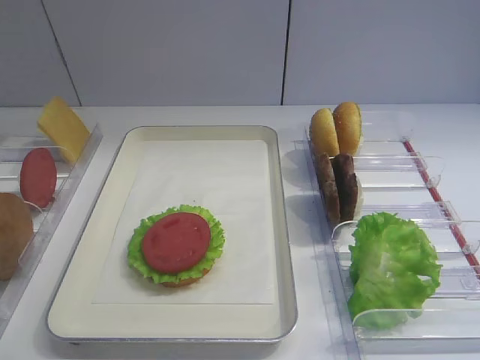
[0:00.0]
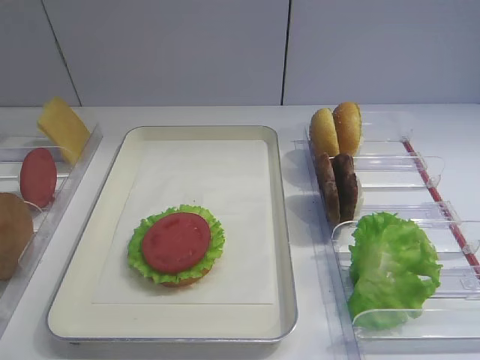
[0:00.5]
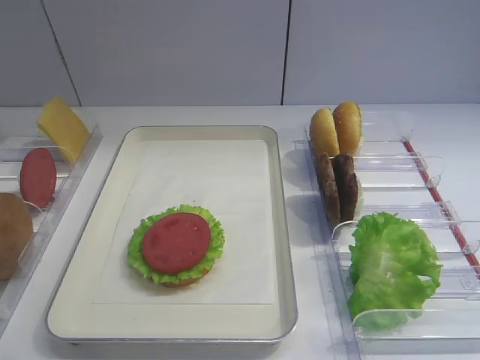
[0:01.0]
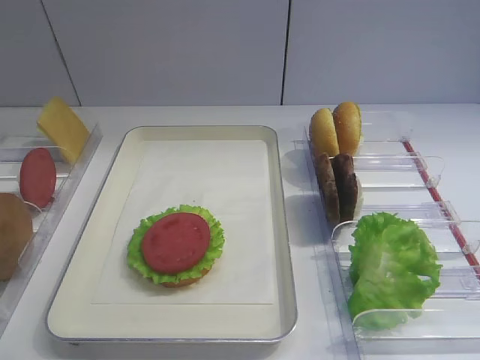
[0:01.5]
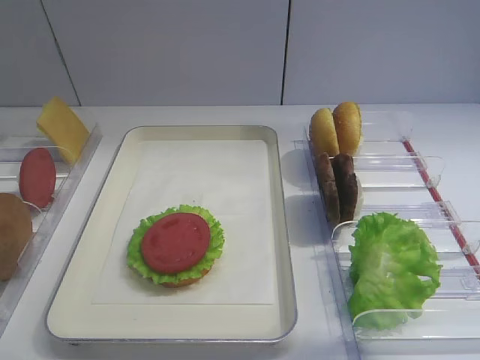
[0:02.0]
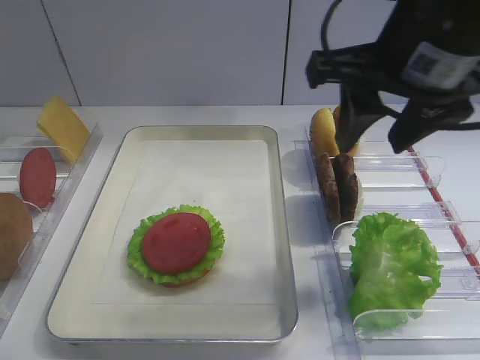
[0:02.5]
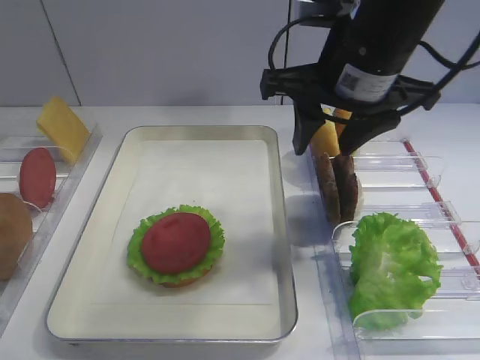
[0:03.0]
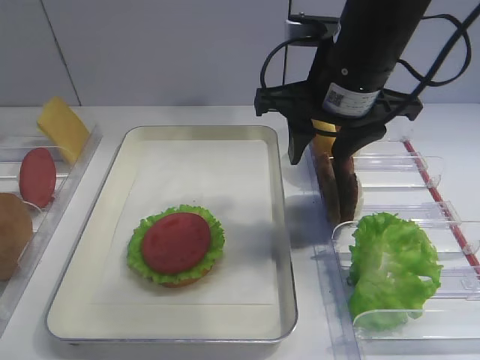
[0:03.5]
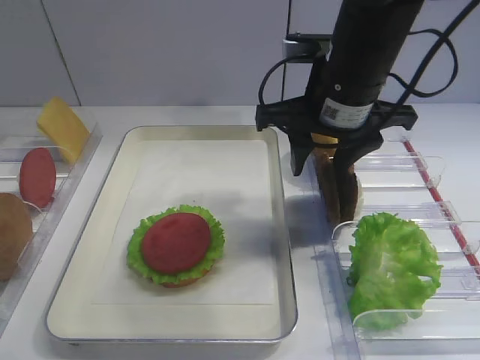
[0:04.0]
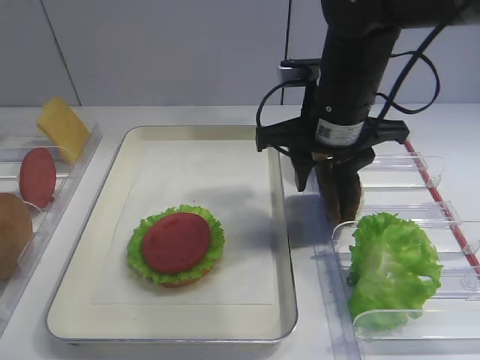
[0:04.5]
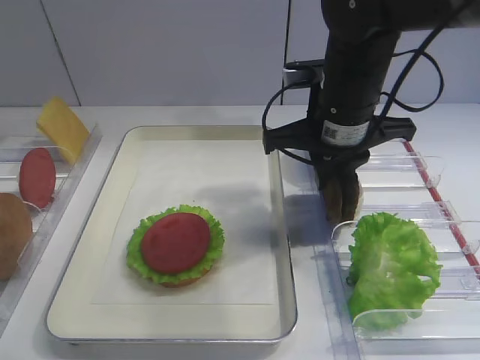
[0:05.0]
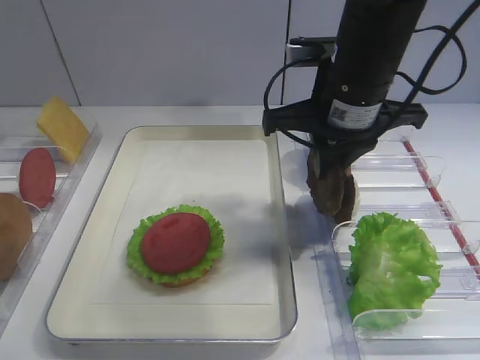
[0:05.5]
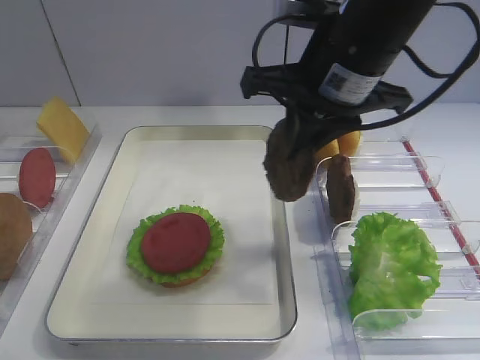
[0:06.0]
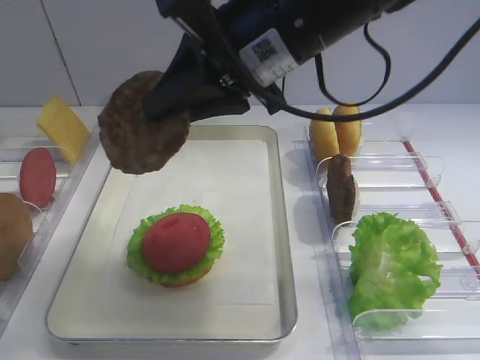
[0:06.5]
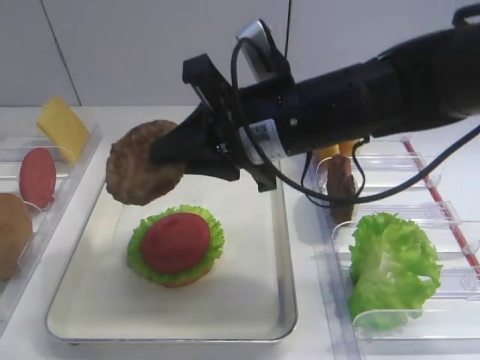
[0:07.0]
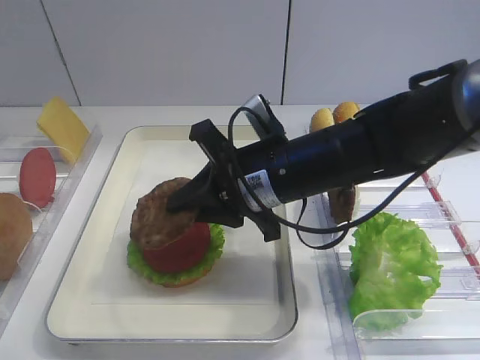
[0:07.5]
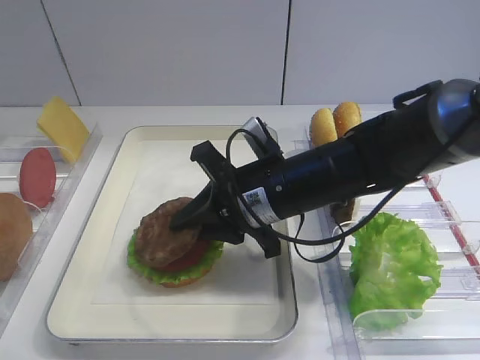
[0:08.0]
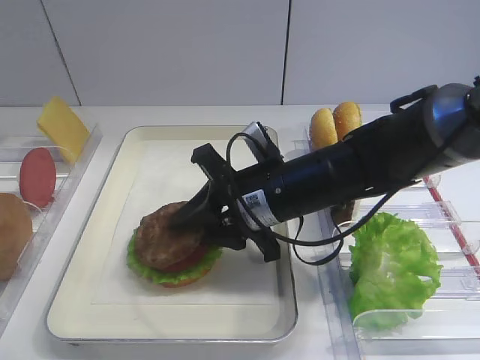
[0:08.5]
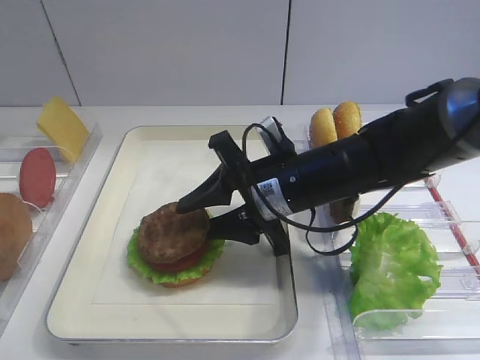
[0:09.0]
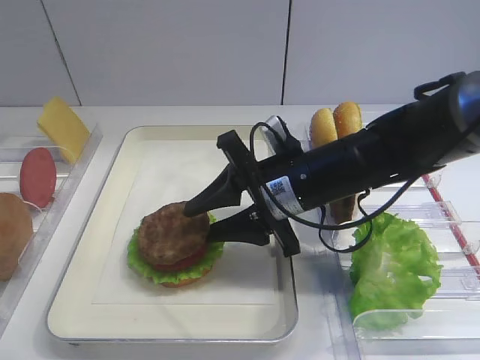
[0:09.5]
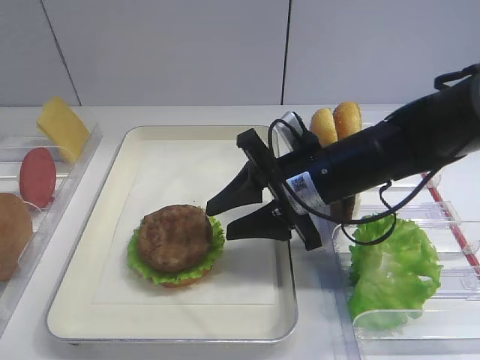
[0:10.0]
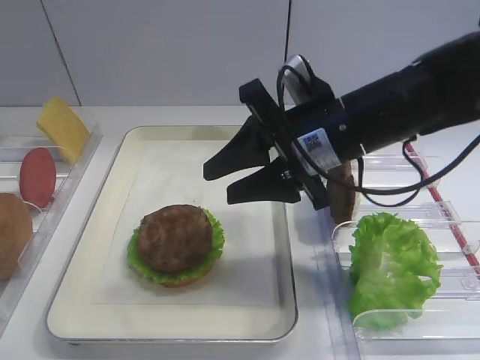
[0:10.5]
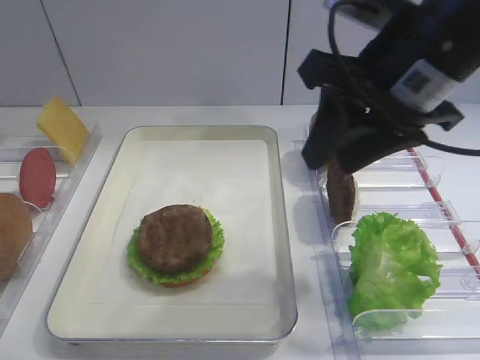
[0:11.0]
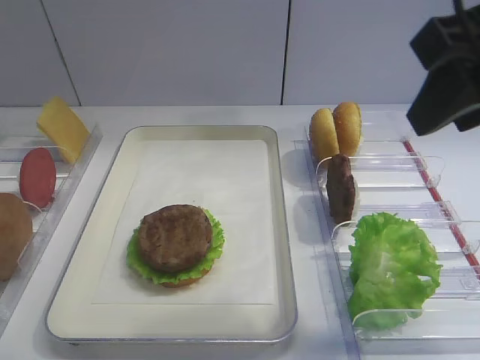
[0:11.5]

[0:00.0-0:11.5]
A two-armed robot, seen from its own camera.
Step, 0:00.0 to 0:05.5: Pick up the cutlet with the right gripper.
Step, 0:06.0 to 0:09.5: Place the cutlet on the tomato slice with the right gripper.
0:02.0 to 0:04.0: The right gripper heads forward, to the left and downward, covering roughly 25 cm.
0:04.0 to 0:06.0: The right gripper shifts by some 5 cm, and closes its fingers.
0:06.0 to 0:07.5: The right gripper shifts some 10 cm downward.
0:07.5 to 0:09.5: The right gripper opens.
0:09.5 to 0:11.5: The right gripper goes some 25 cm upward, to the right and backward.

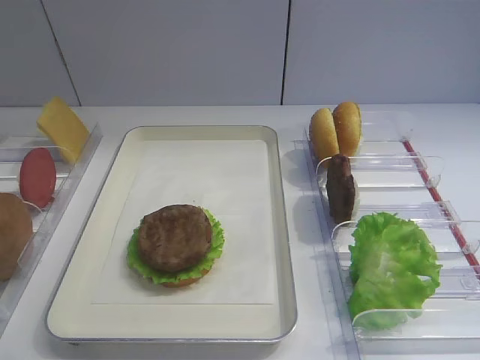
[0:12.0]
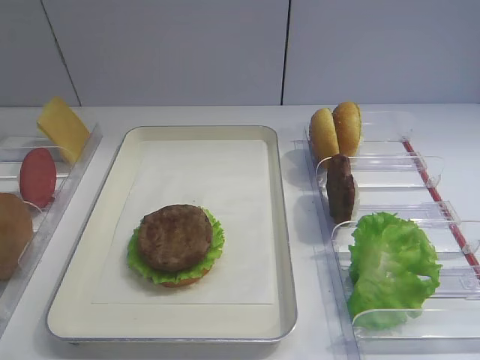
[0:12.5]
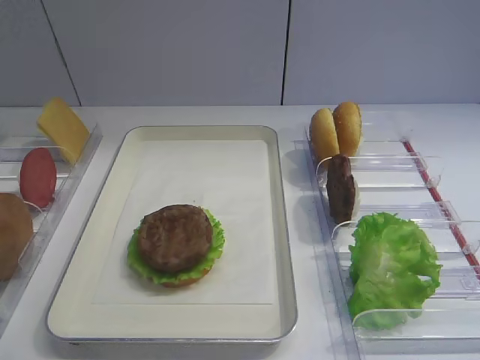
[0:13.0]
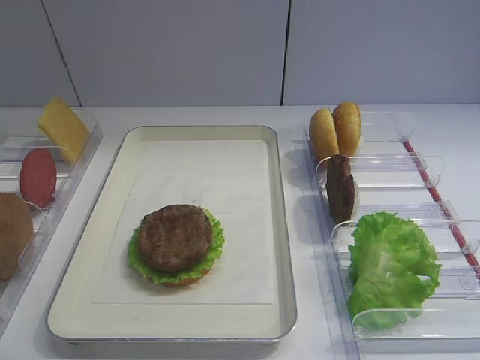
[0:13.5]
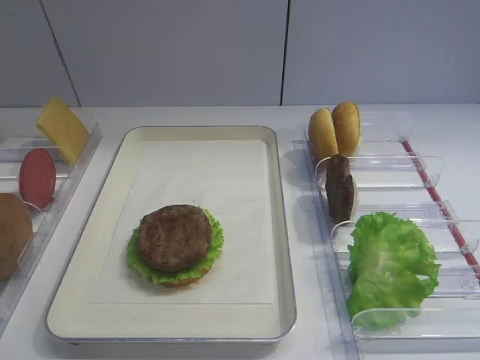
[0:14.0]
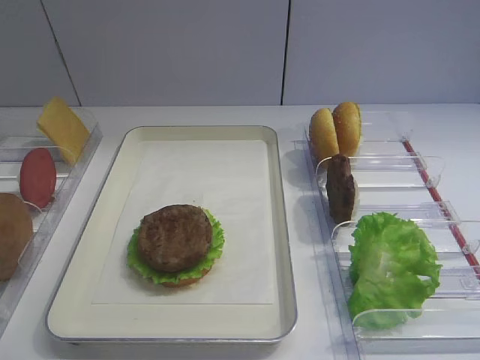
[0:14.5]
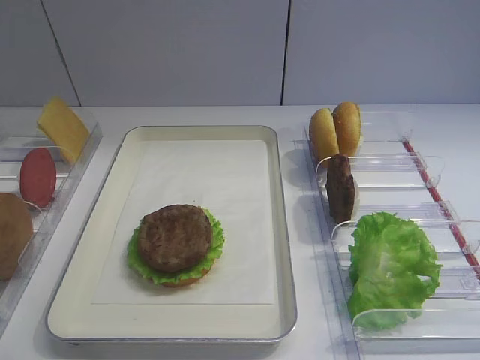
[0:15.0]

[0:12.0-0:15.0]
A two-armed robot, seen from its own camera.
0:12.0 to 0:13.5: The right gripper goes approximately 15 cm backward, downward and to the right.

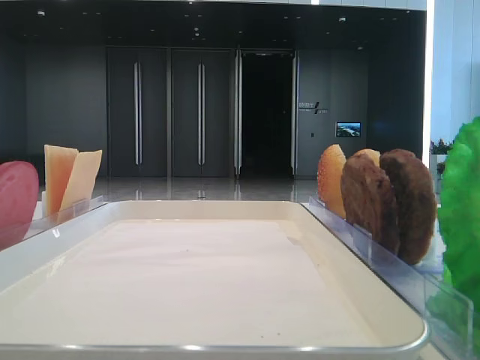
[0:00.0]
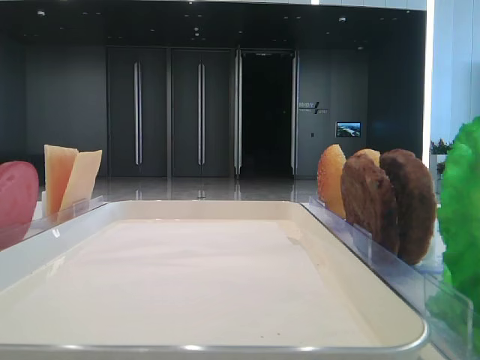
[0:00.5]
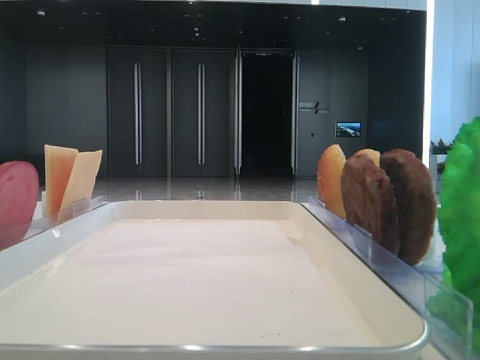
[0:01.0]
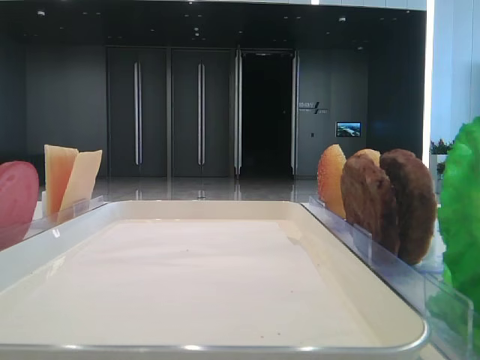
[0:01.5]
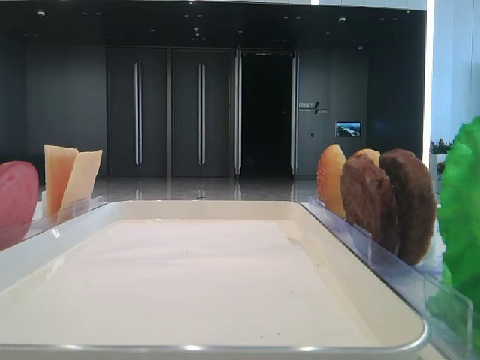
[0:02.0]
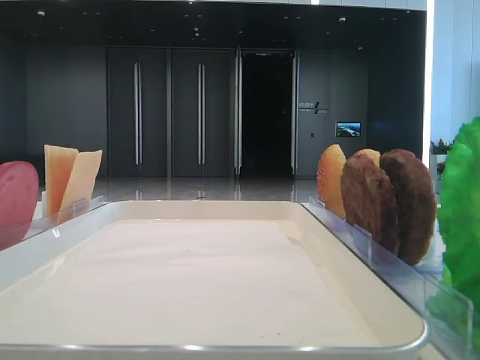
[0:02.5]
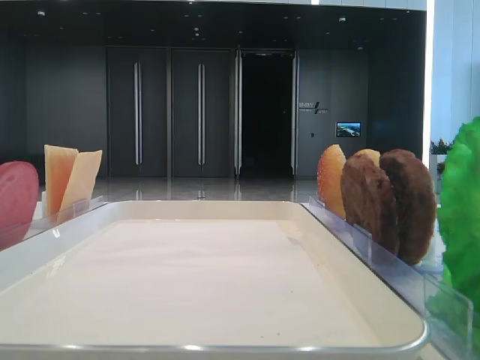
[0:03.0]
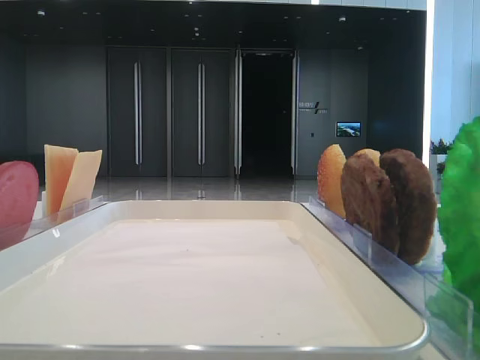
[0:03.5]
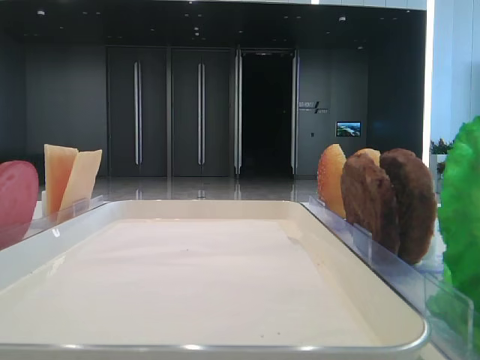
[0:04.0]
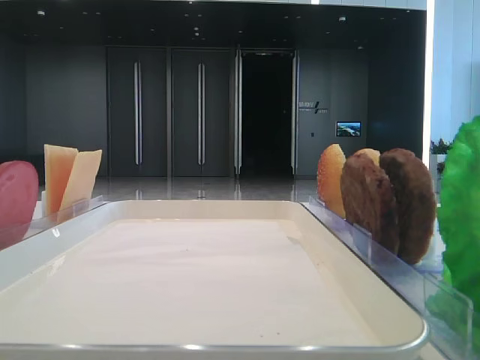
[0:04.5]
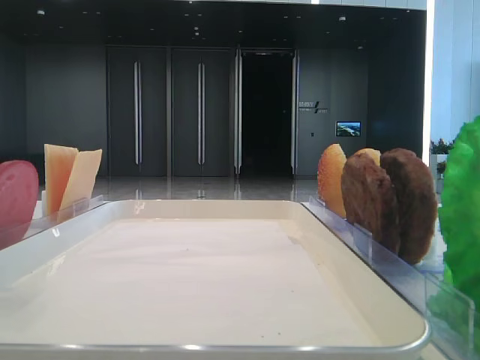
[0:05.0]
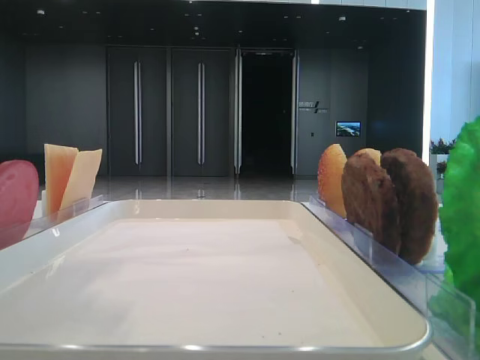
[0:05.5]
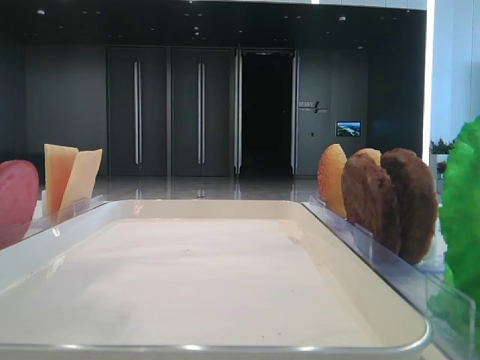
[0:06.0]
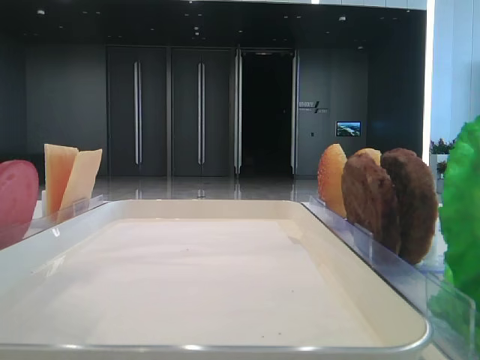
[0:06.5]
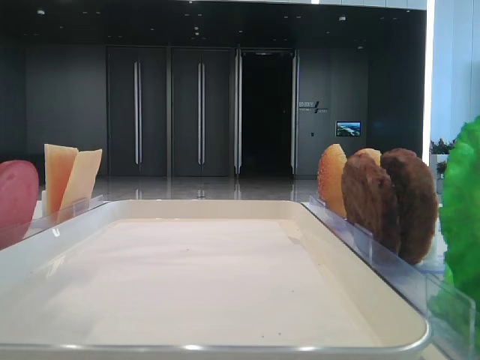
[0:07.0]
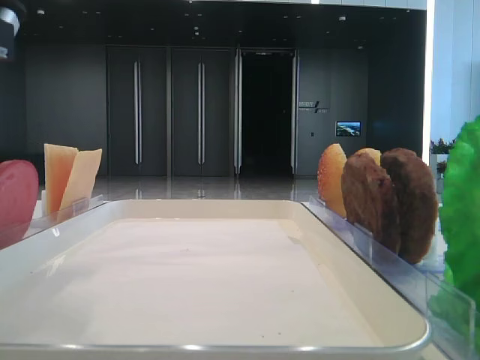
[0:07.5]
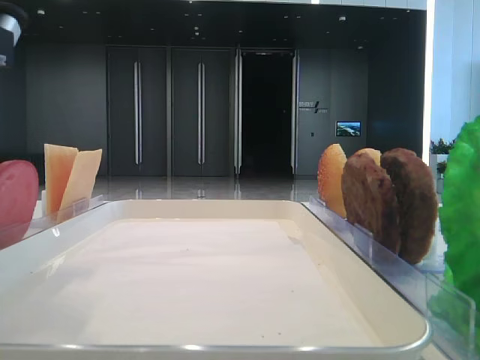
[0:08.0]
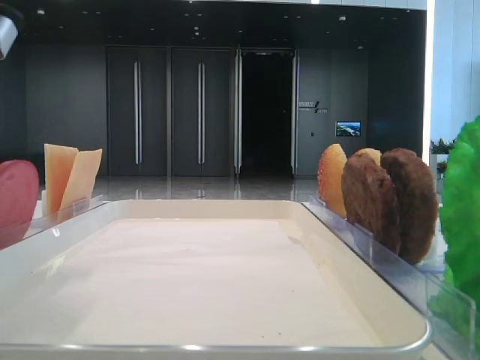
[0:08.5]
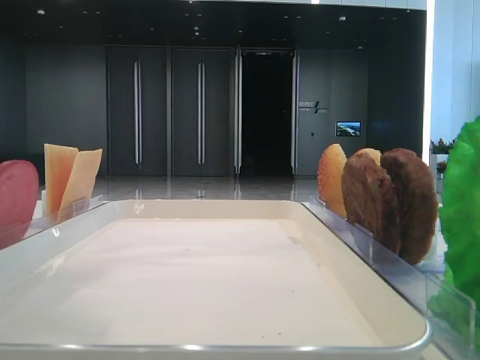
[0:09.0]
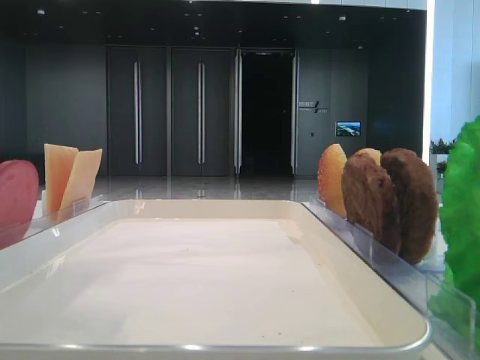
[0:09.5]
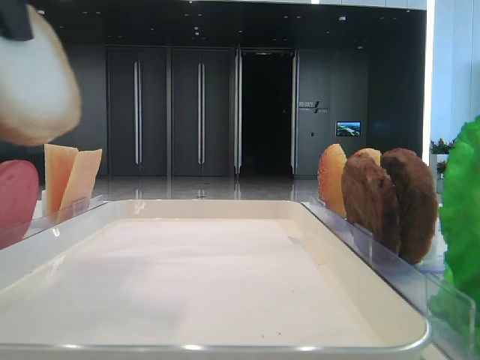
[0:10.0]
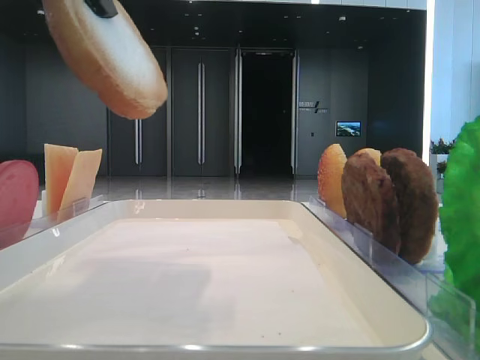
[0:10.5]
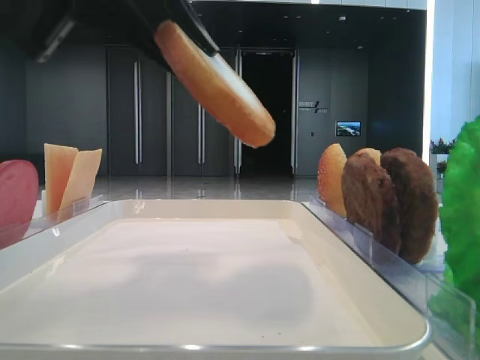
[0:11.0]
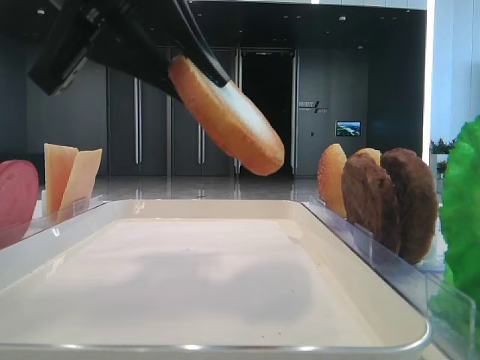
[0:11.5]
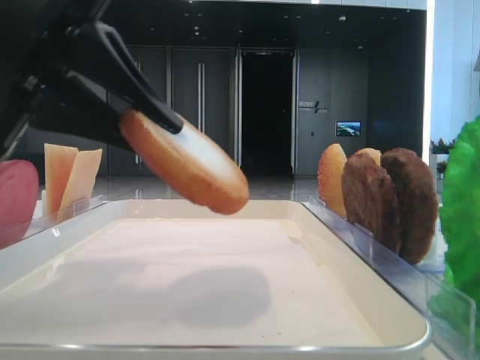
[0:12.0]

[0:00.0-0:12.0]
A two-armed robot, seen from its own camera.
0:04.0 to 0:06.0: The left gripper travels to the right by some 15 cm, and opens up.
0:08.0 to 0:10.0: The left gripper travels upward by approximately 10 cm, and closes its fingers.
0:10.0 to 0:12.0: The left gripper is displaced downward by some 10 cm.
